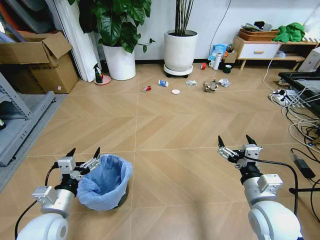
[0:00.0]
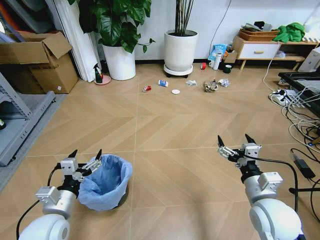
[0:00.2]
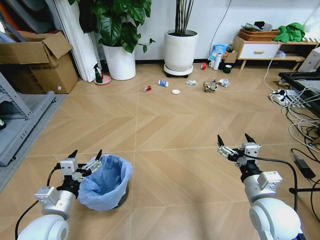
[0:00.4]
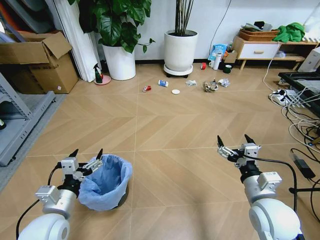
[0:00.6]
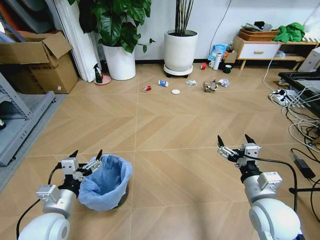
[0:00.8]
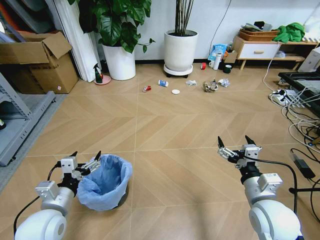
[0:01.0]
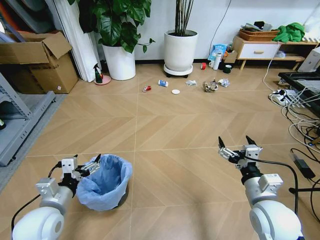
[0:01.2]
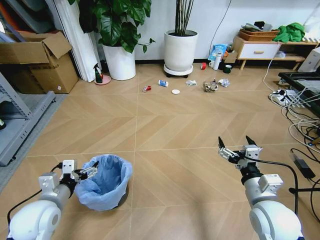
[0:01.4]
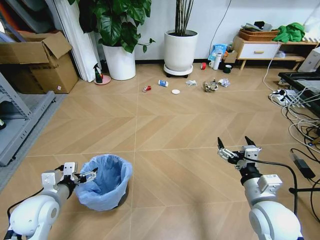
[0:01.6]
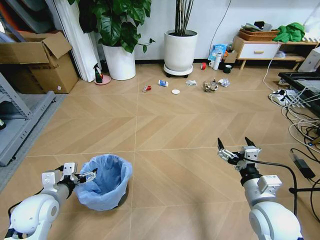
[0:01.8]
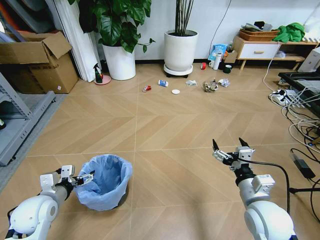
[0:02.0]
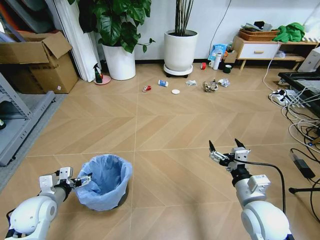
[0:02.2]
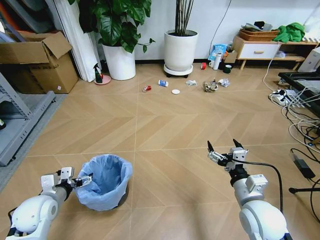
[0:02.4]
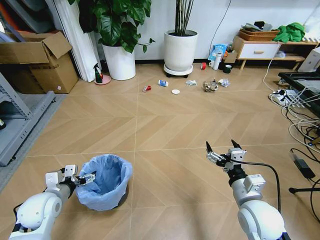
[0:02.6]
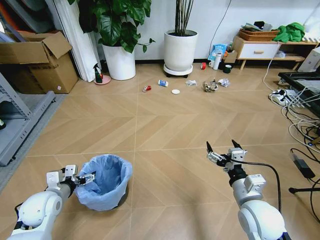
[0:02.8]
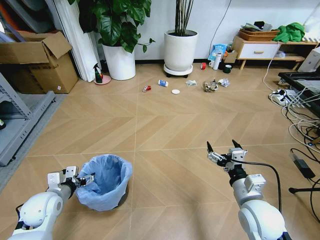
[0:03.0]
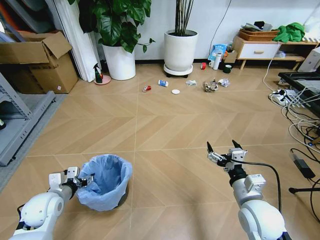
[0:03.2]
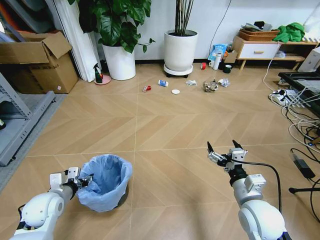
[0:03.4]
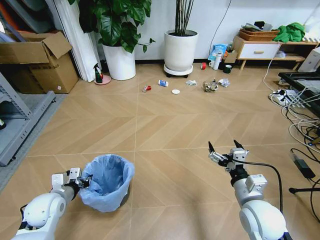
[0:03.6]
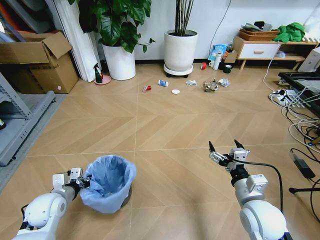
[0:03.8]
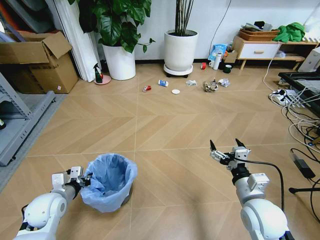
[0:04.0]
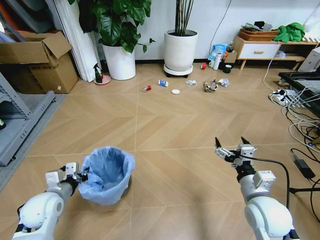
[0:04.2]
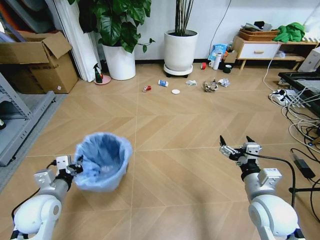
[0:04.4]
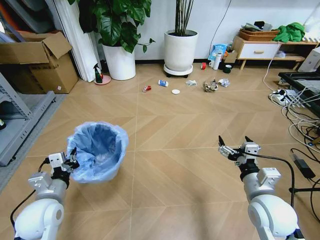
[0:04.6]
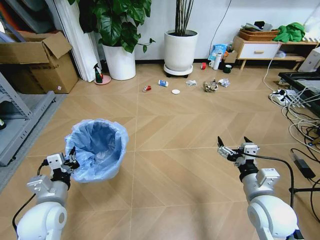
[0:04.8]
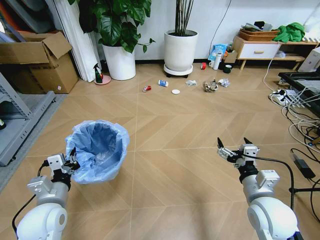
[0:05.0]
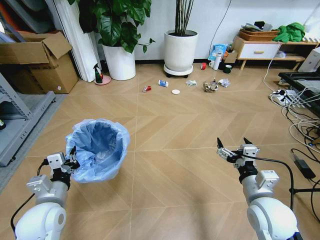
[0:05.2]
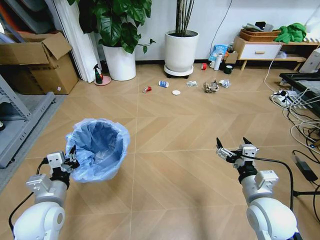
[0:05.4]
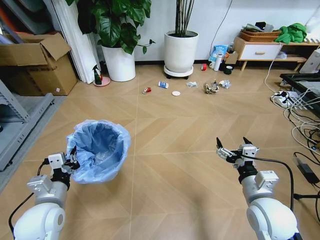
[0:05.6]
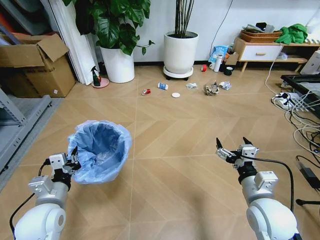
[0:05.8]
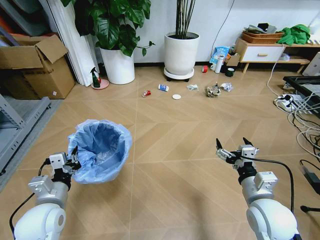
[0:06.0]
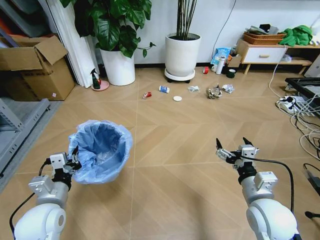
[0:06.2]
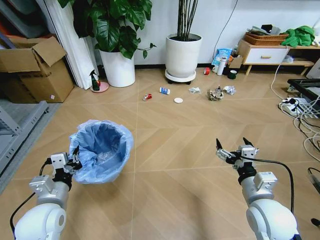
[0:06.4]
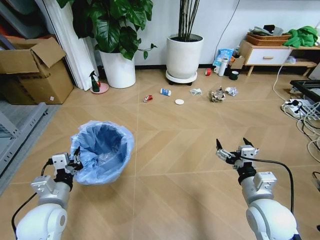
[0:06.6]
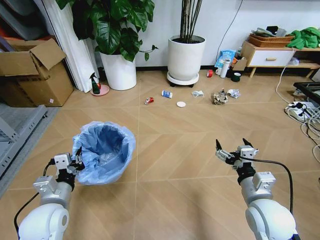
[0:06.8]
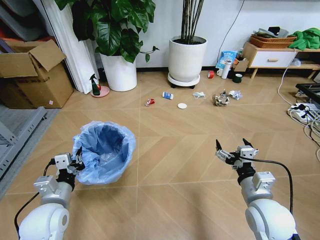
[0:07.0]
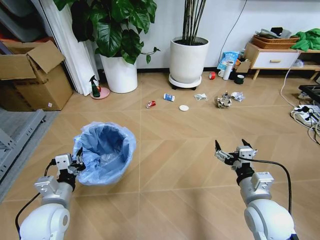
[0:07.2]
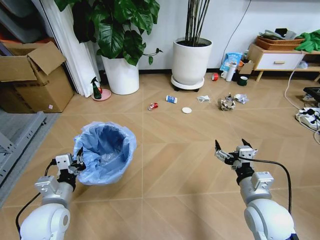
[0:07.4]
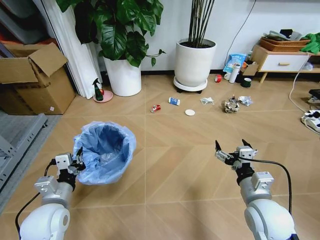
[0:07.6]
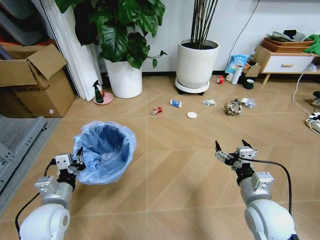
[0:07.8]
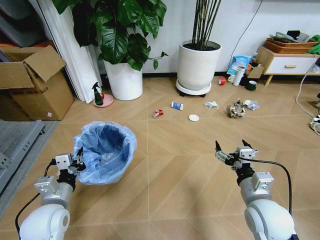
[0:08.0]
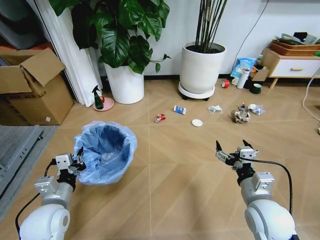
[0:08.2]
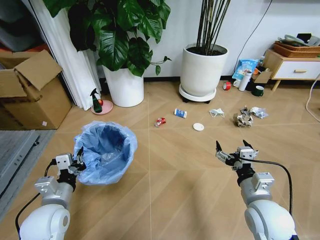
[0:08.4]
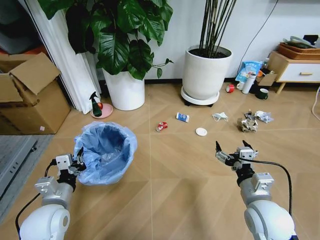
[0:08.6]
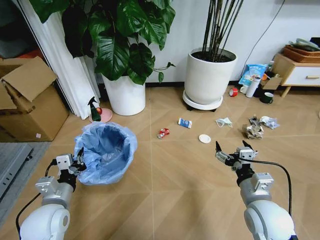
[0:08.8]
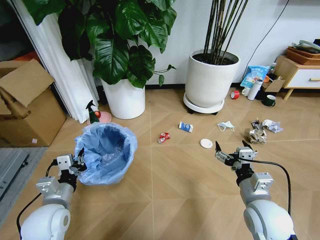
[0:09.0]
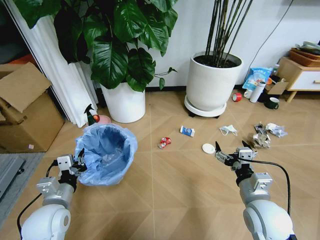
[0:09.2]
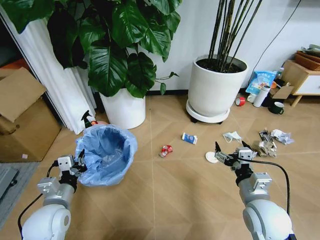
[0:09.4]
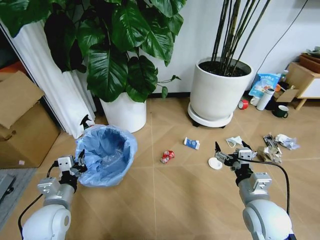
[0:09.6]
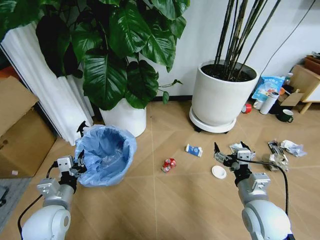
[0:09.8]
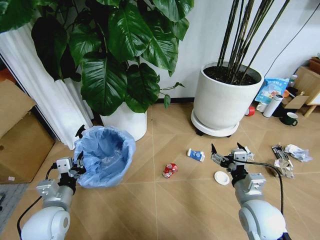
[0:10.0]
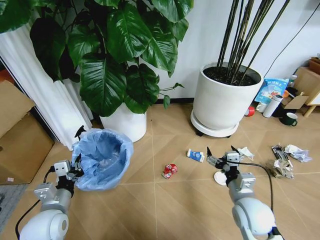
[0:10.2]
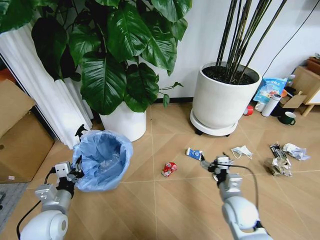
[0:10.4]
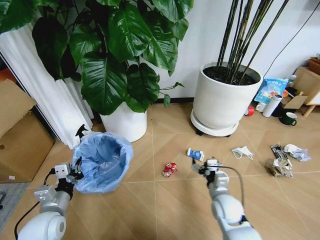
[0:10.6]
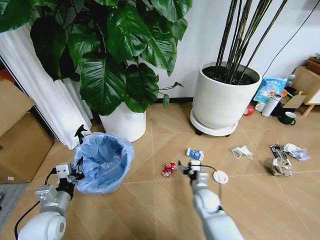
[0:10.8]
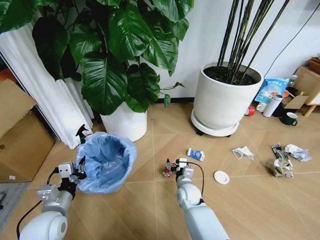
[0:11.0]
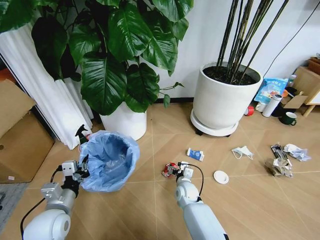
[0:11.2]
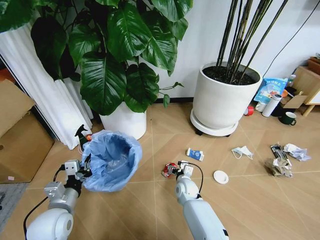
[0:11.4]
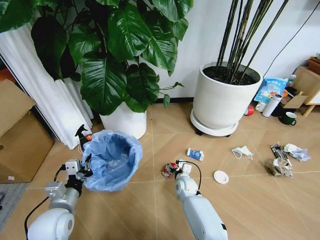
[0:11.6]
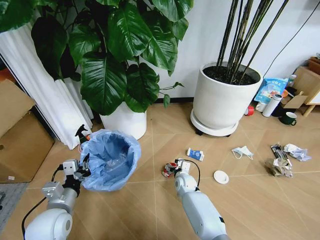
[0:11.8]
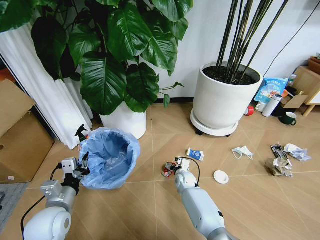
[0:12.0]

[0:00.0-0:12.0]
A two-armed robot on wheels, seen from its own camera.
Task of the whole recording: Pick up the trash bin and place the garbage on the floor into it.
0:01.6 to 0:03.0: The left gripper heads downward, covering about 5 cm.
0:03.0 to 0:04.4: The left gripper ends up about 5 cm from where it was, and closes up.
0:04.4 to 0:06.0: The left gripper changes place by some 5 cm.
0:09.0 to 0:10.4: The right gripper is displaced downward by roughly 10 cm.
0:10.4 to 0:12.0: The right gripper goes some 25 cm forward, downward and to the left.

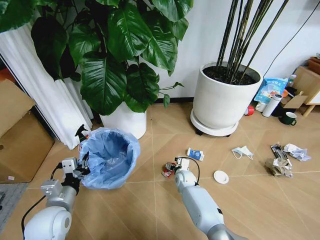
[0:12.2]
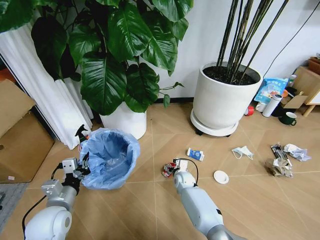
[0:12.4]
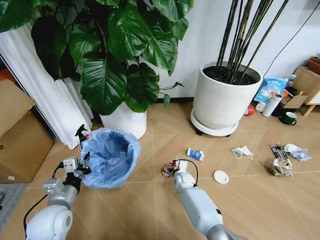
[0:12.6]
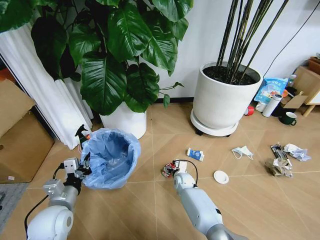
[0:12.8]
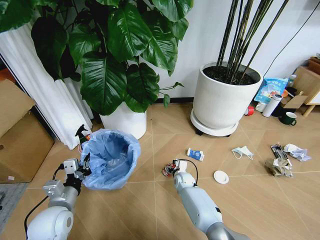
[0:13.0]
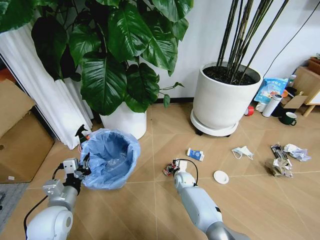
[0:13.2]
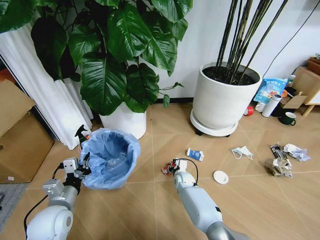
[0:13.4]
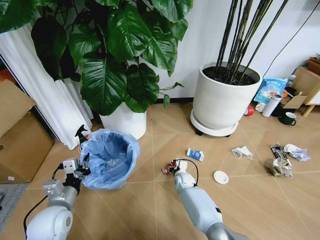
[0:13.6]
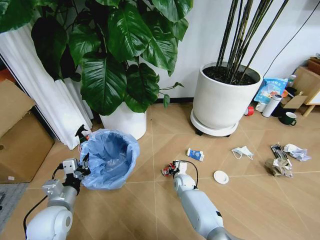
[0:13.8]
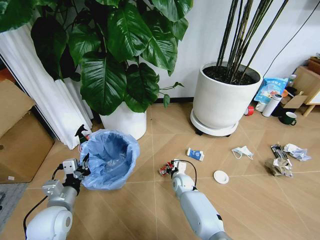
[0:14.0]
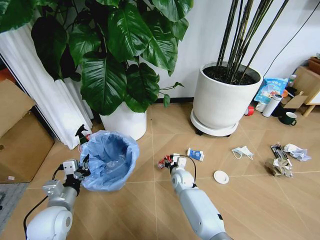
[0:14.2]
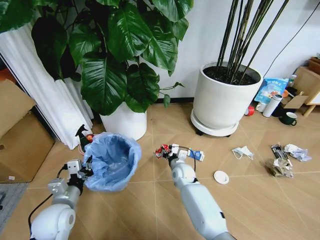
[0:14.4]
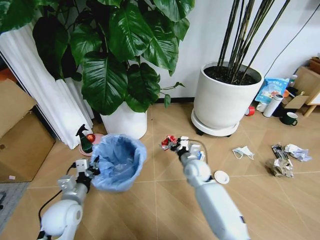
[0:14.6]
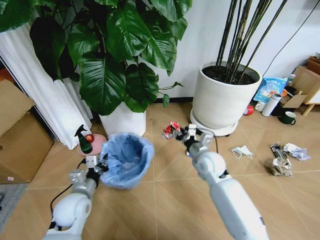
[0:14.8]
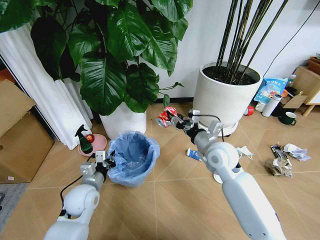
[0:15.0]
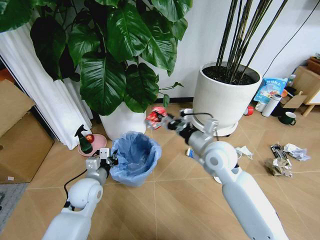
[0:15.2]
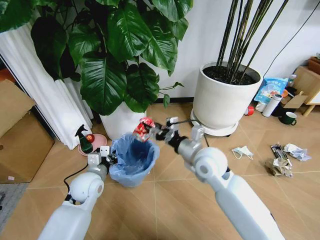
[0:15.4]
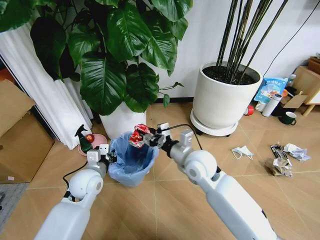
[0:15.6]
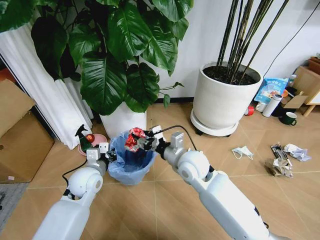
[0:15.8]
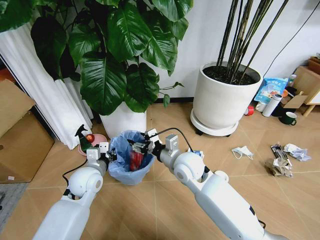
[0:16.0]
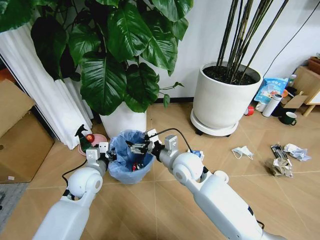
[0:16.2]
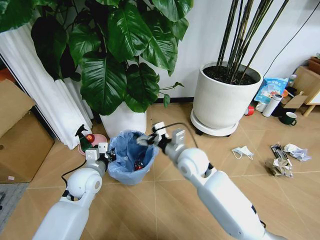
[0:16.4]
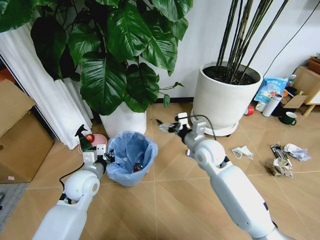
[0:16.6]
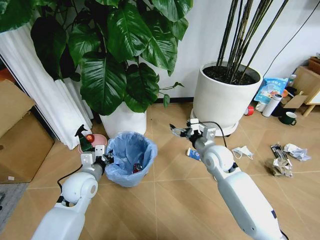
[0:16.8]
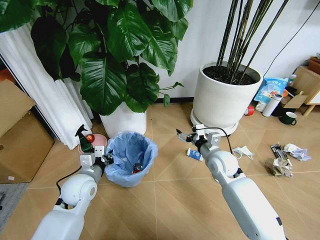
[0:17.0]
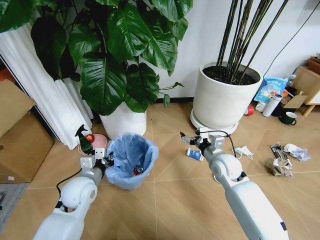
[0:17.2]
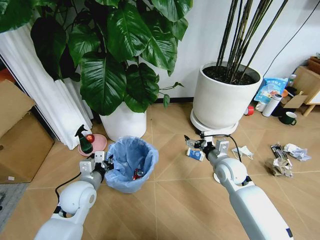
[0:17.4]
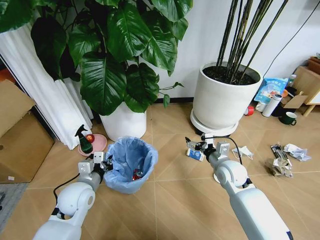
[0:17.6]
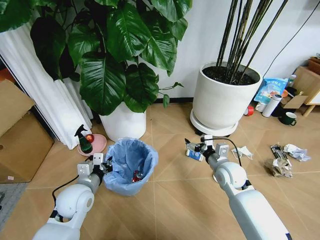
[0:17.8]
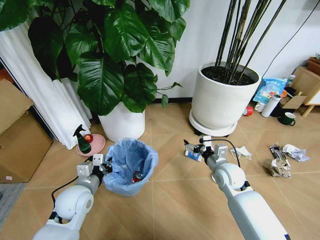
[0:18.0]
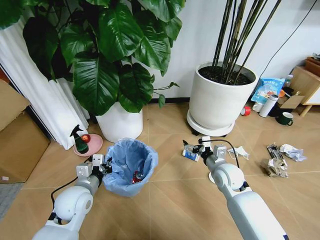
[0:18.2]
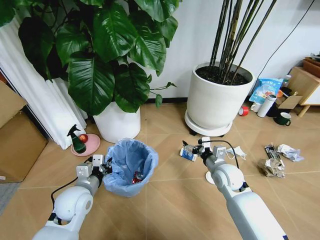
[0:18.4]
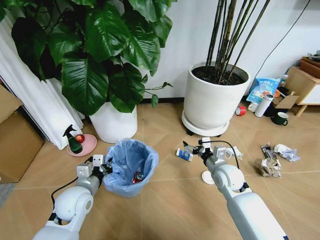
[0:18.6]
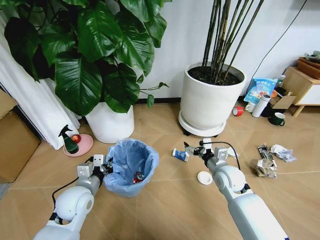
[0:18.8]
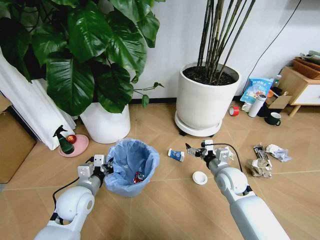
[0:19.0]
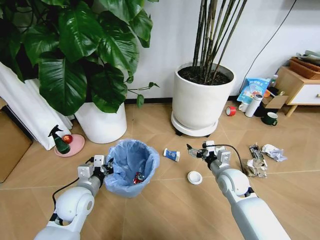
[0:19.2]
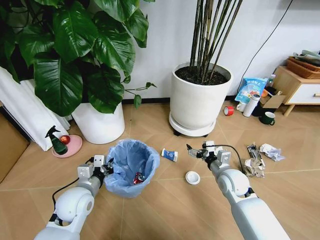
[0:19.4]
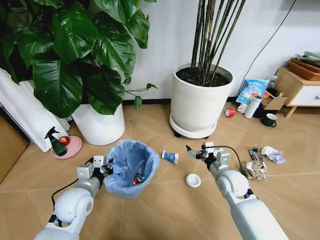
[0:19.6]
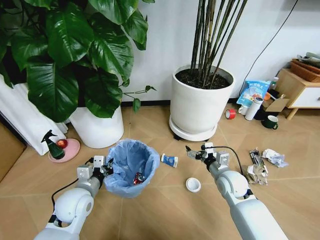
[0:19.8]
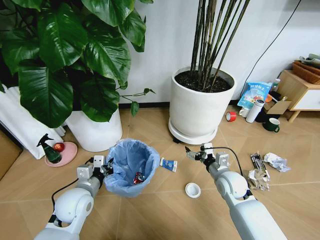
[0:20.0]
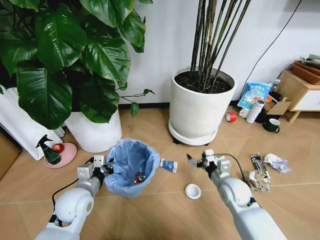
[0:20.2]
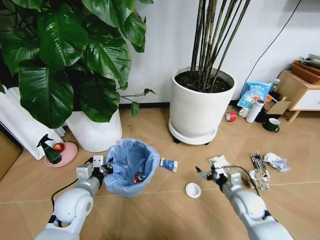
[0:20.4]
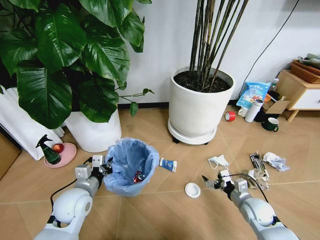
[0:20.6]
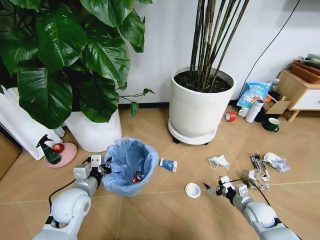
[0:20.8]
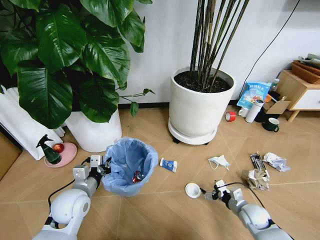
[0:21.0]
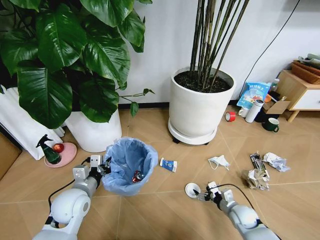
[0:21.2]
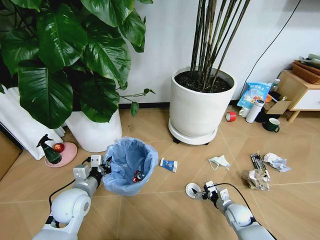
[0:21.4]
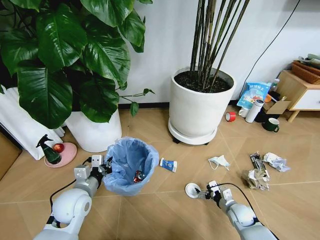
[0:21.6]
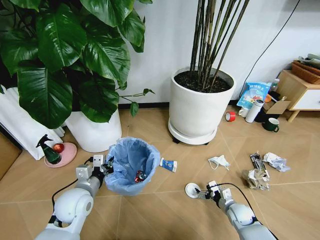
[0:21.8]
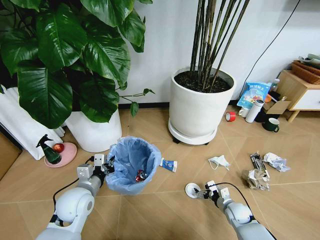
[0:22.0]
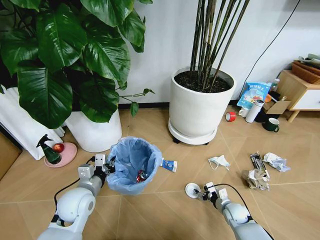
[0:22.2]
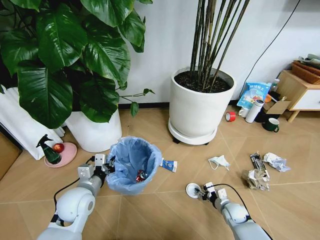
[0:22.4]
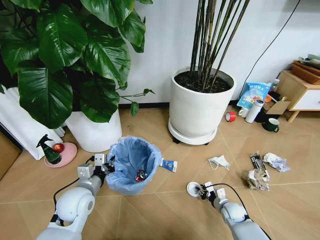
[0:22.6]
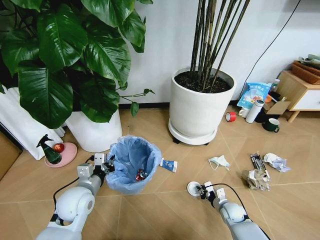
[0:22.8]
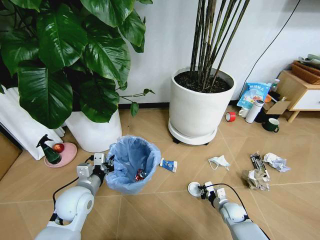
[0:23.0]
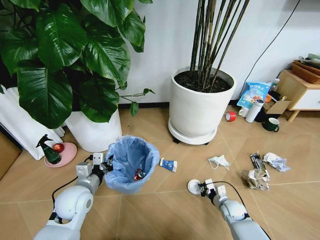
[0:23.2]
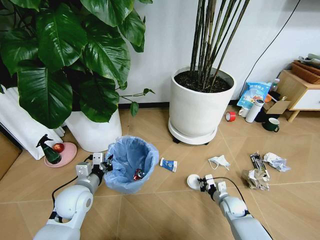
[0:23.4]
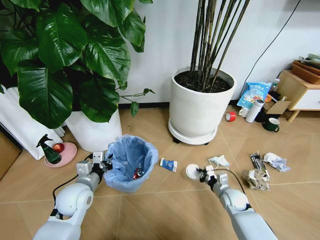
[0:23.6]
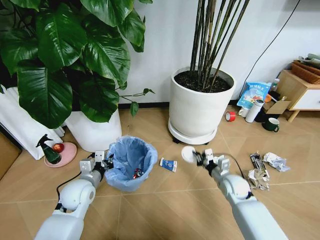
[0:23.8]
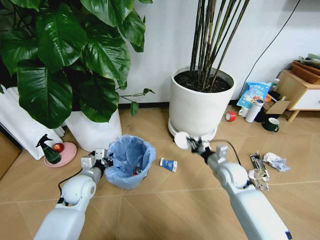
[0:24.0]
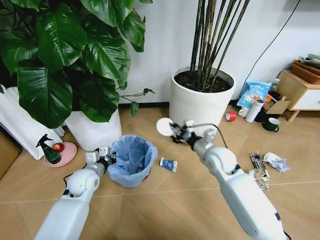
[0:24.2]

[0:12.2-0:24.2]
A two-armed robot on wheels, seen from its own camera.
Task of the whole recording: Pick up the trash bin and place the garbage on the floor into it.
0:12.2 to 0:13.8: The right gripper closes its fingers.
0:13.8 to 0:15.2: The right gripper shifts roughly 30 cm upward. The left gripper moves forward and to the right, approximately 10 cm.
0:15.2 to 0:16.6: The right gripper moves about 10 cm to the left and comes back, and opens.
0:16.6 to 0:18.2: The left gripper moves backward, approximately 5 cm; the right gripper heads downward and to the right, covering approximately 15 cm.
0:19.8 to 0:21.2: The right gripper moves downward, to the right and backward, some 20 cm.
0:21.2 to 0:22.6: The right gripper ends up roughly 5 cm from where it was, and closes.
0:22.6 to 0:24.2: The left gripper heads forward, covering roughly 10 cm. The right gripper travels upward by some 25 cm.
